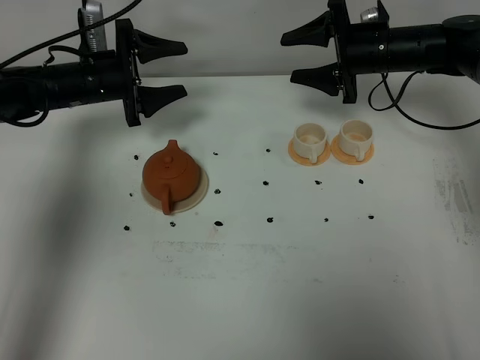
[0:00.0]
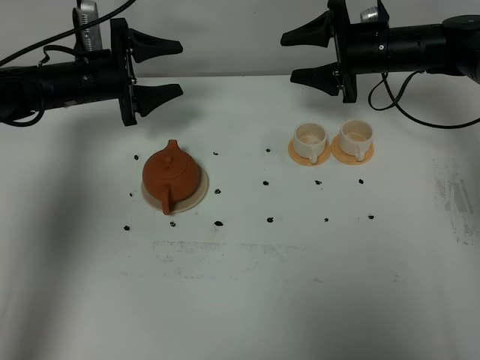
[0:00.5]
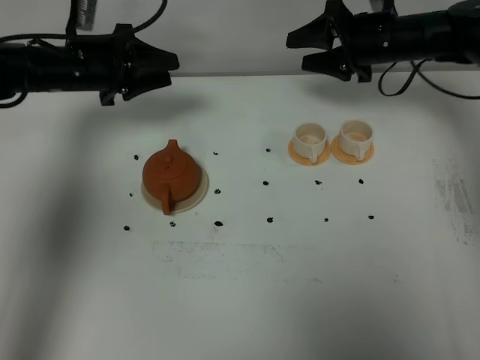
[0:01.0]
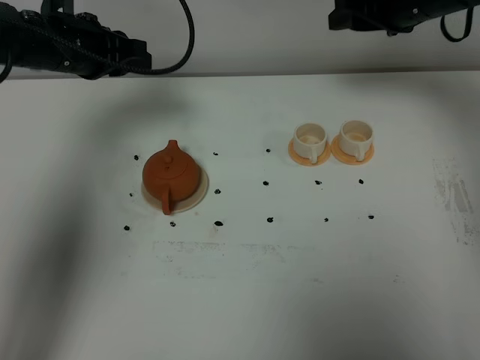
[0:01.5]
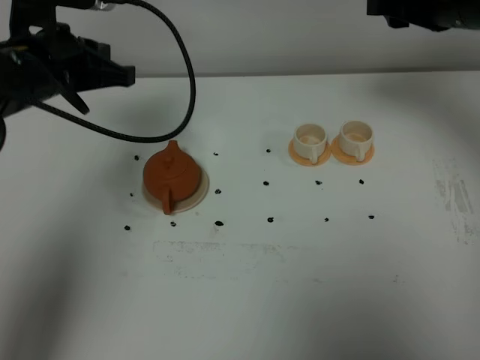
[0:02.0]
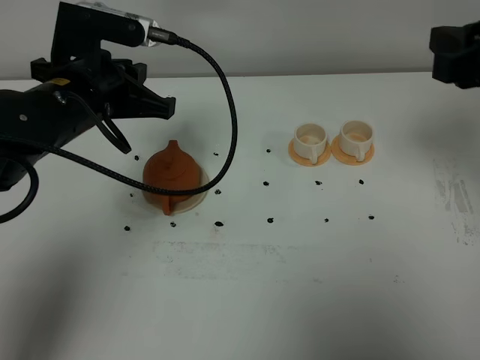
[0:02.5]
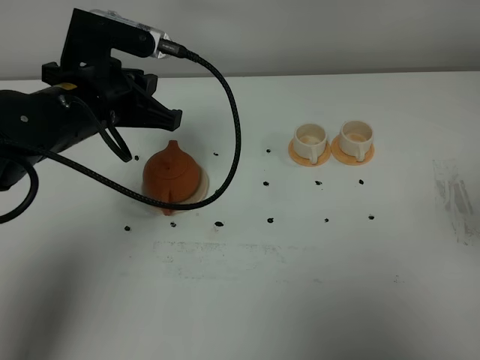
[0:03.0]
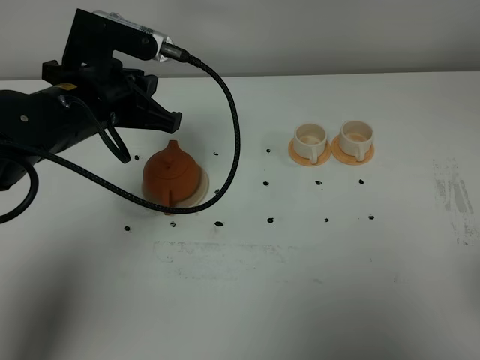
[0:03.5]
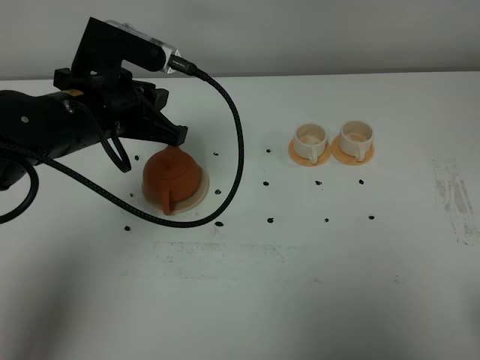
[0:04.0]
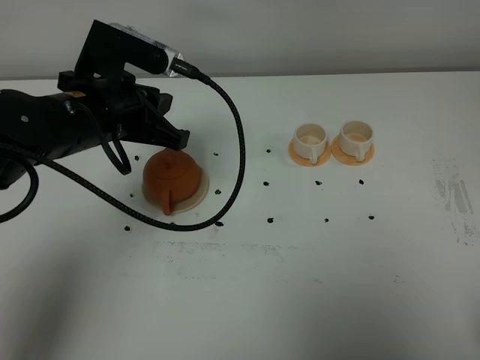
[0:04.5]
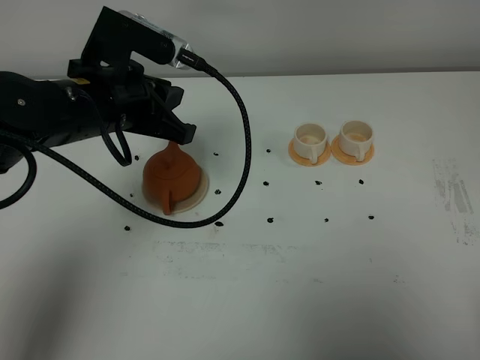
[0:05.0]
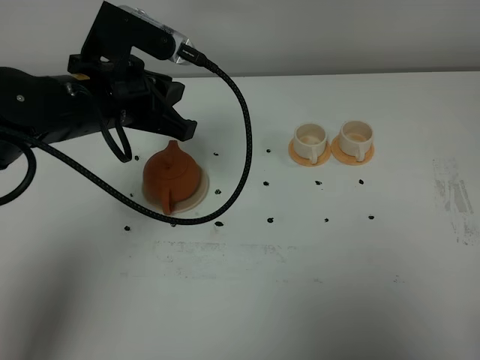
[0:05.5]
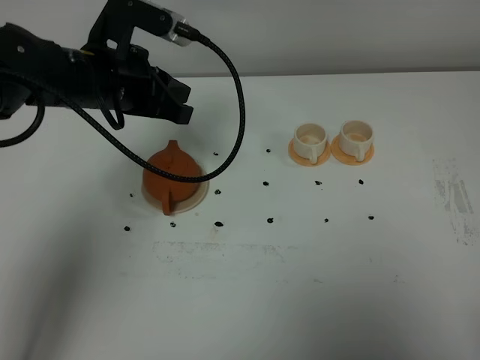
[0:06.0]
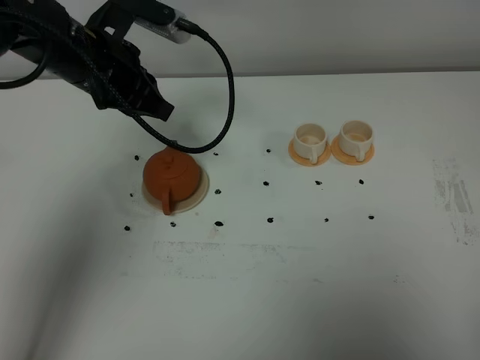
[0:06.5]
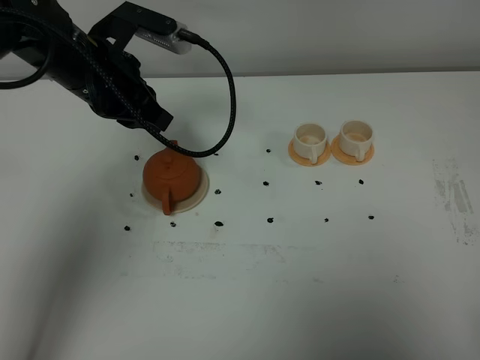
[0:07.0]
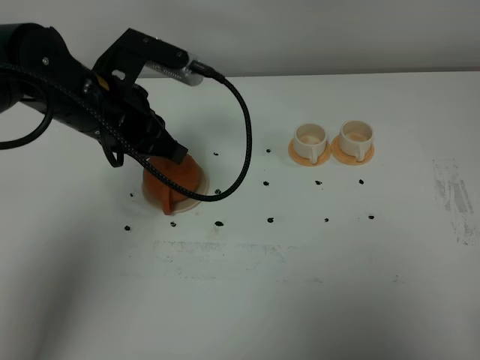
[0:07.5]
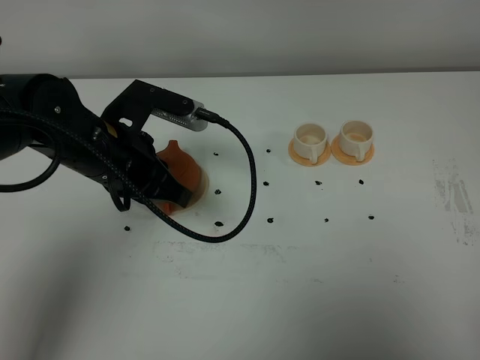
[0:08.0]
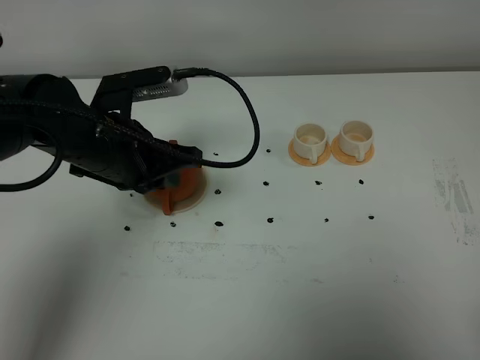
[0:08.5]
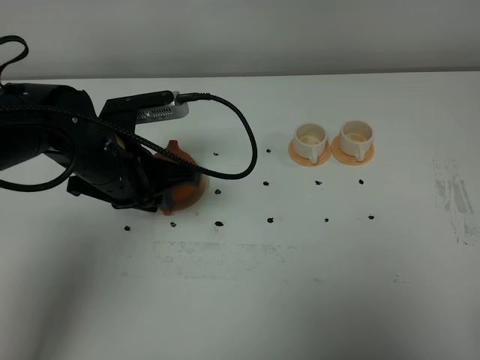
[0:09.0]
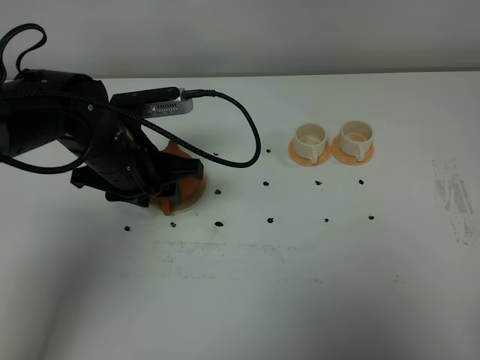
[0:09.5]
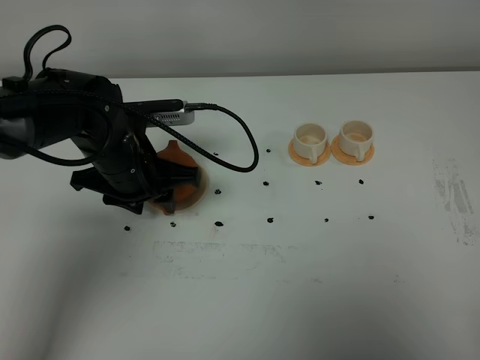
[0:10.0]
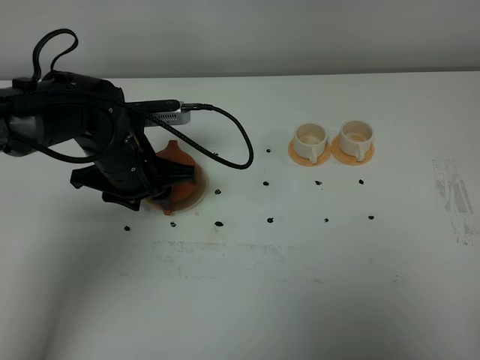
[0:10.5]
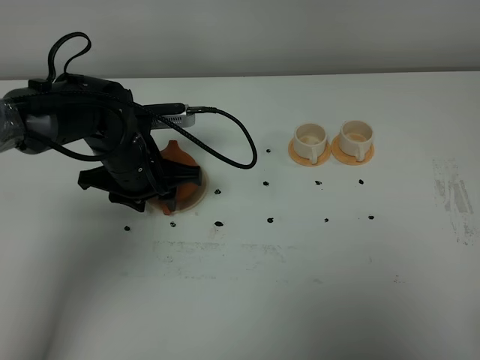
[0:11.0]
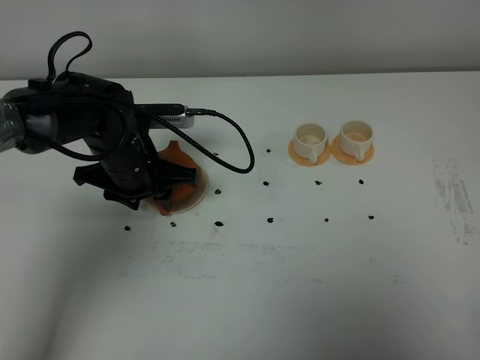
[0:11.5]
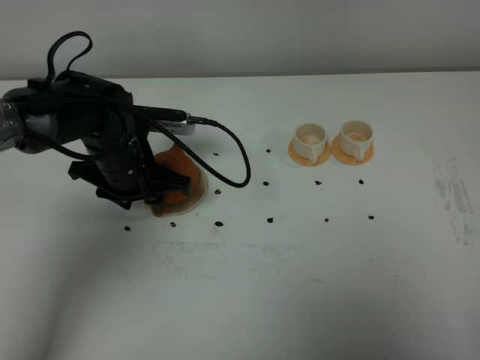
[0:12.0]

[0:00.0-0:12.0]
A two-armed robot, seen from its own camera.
Task of the whole recording: grasp the brown teapot and pour the tea into the two white teacups one by one, put the brown teapot back in its original place.
0:00.0 to 0:02.0: The right gripper goes roughly 20 cm upward and backward, while the left gripper goes roughly 15 cm backward and upward, and closes up.
0:02.0 to 0:04.0: The right gripper shifts some 35 cm backward; the left gripper shifts some 5 cm to the right.
0:04.0 to 0:06.0: The right gripper closes.
0:06.0 to 0:08.0: The left gripper is displaced backward by some 5 cm.
0:08.0 to 0:10.0: The left gripper changes place by about 5 cm, and opens up.
0:10.0 to 0:12.0: The grippers make only small movements.

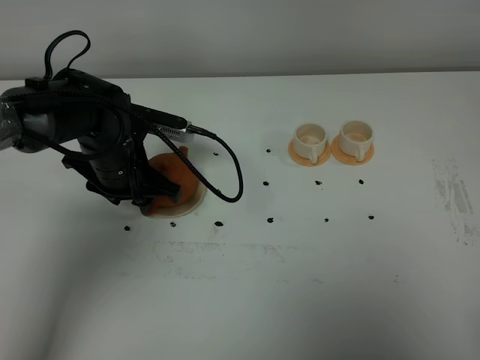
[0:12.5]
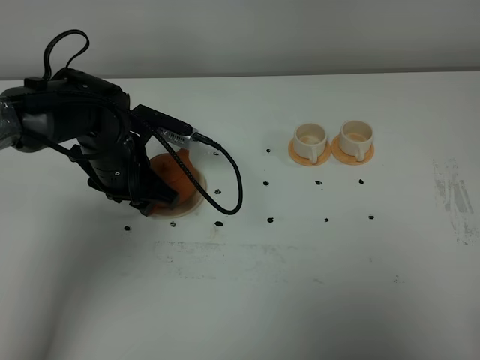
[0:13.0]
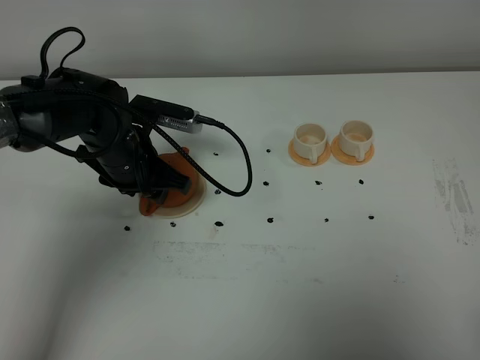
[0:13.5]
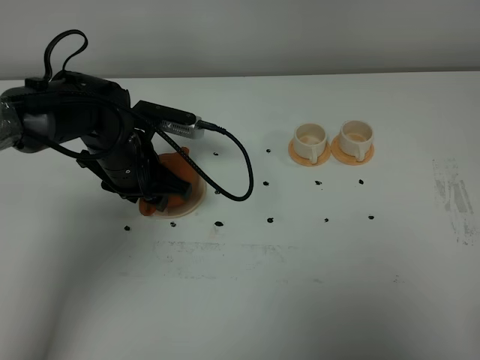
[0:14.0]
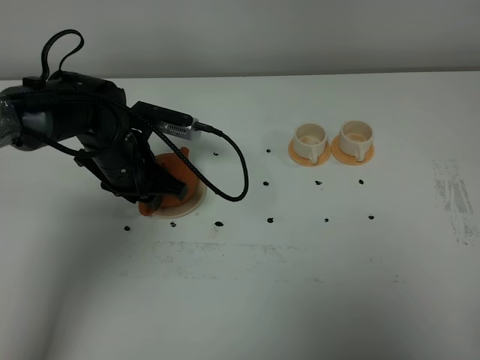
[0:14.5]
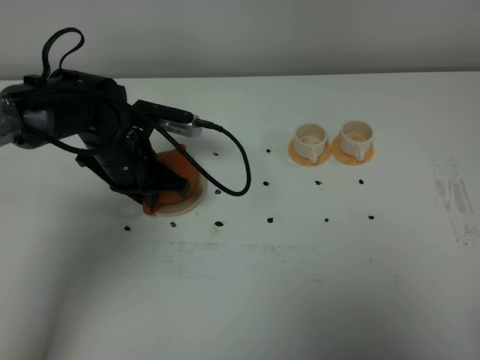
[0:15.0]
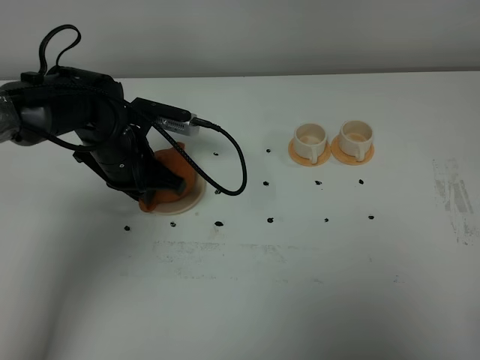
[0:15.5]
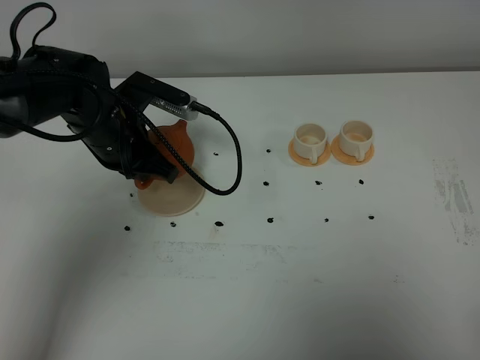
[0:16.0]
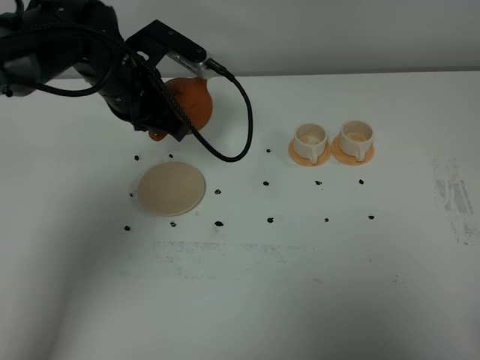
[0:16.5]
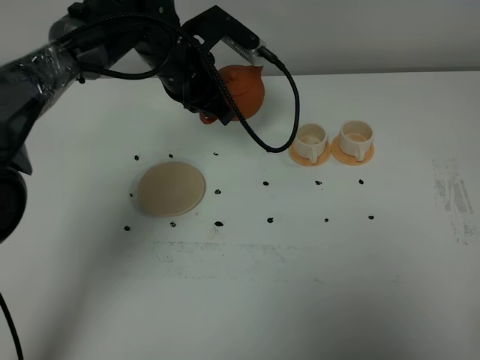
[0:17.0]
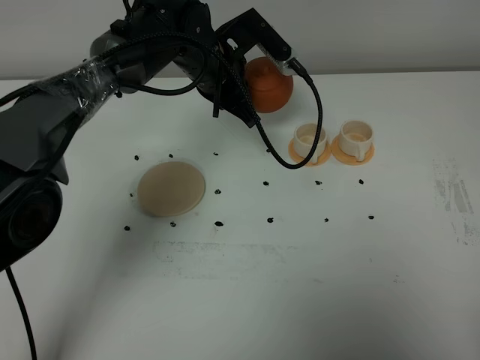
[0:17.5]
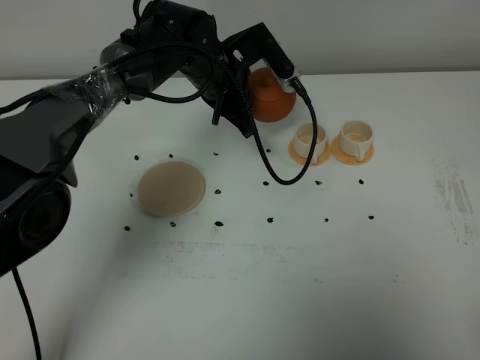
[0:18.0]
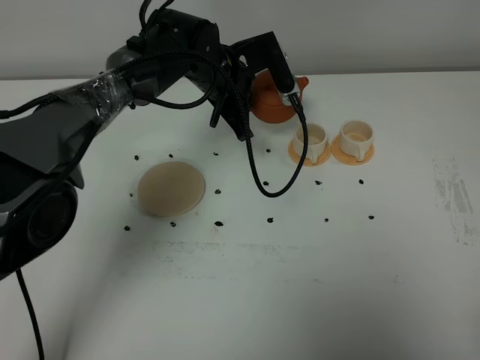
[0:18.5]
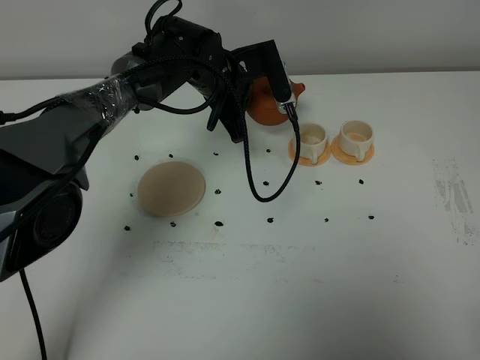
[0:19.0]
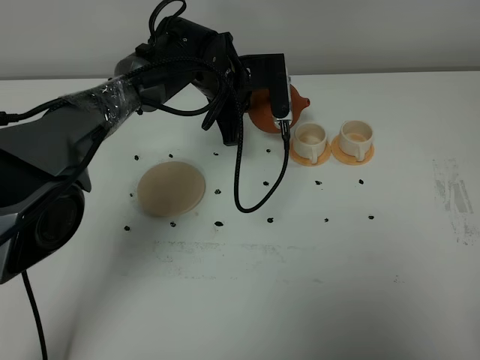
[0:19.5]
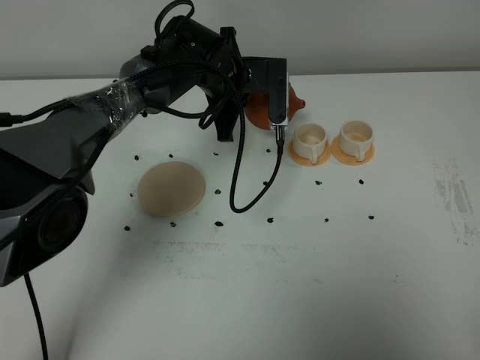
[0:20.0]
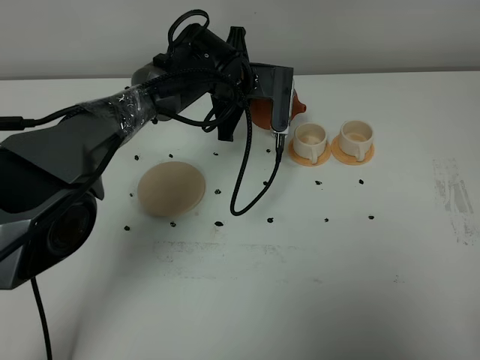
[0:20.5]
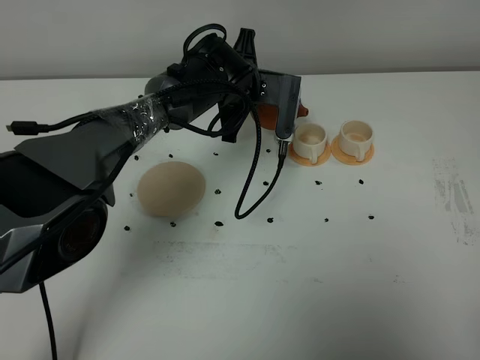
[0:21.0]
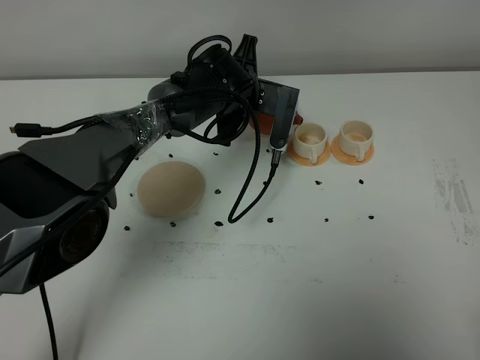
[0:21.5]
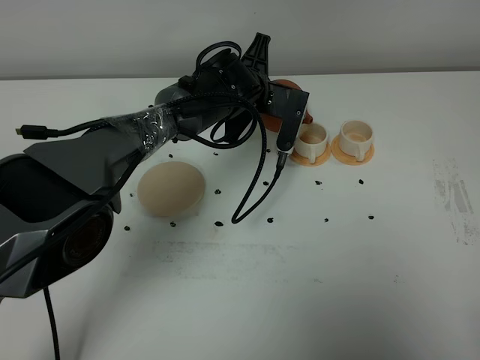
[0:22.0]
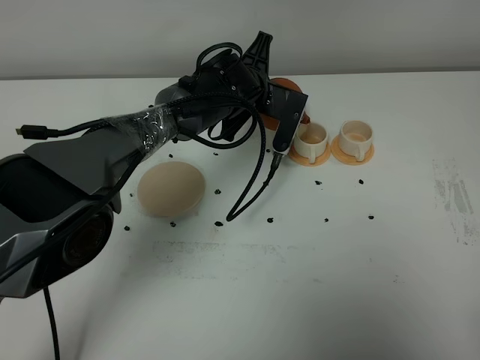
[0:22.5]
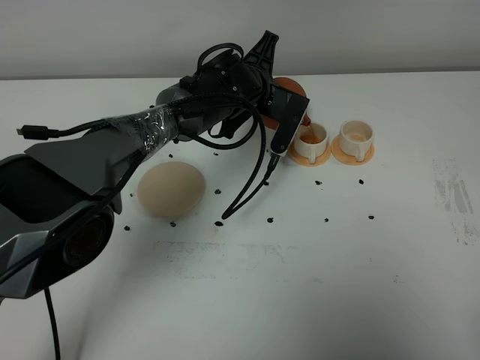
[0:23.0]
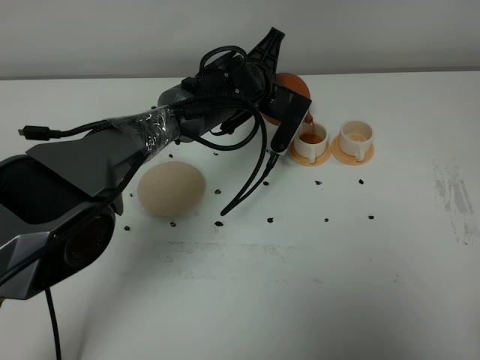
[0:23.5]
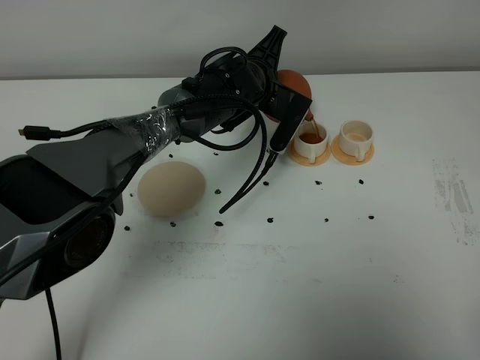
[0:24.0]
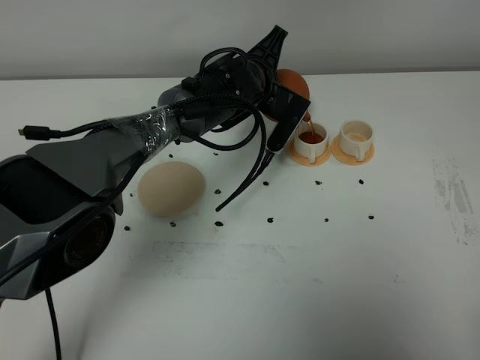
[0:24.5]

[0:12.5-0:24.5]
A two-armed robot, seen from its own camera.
Task of the whole recording: grasp the brown teapot and pour the tea into the two white teacups one by one, put the brown teapot back in its original place.
Step, 0:12.5 to 0:15.5: Pick up the teapot with the left gripper.
0:12.5 to 0:14.5: There are only small adjustments of the grippers.
0:14.5 to 0:16.5: The left gripper shifts roughly 10 cm upward, and closes up.
0:16.5 to 0:18.5: The left gripper heads to the right and forward, covering some 10 cm.
0:20.5 to 0:22.5: There are only small adjustments of the grippers.
0:22.5 to 0:24.5: The grippers stay close to where they were, moving slightly.

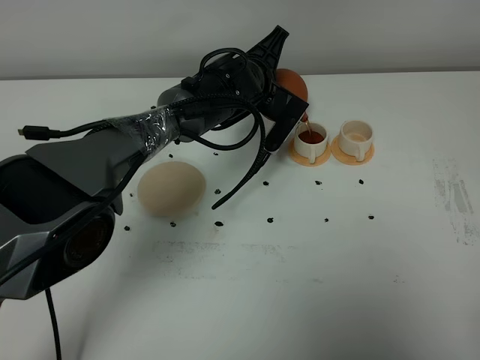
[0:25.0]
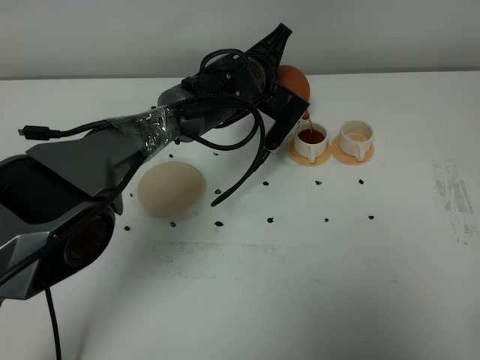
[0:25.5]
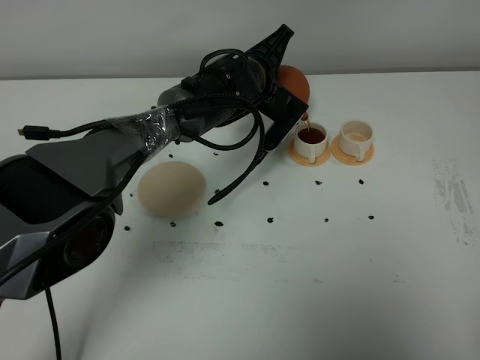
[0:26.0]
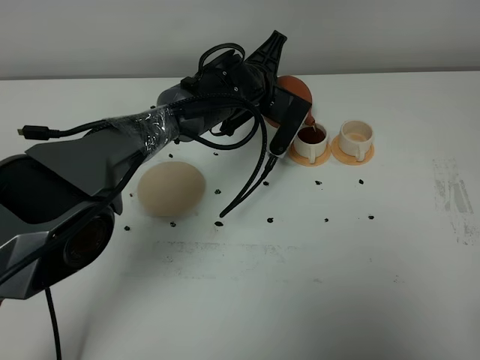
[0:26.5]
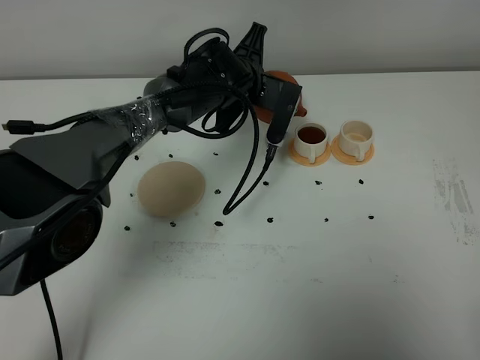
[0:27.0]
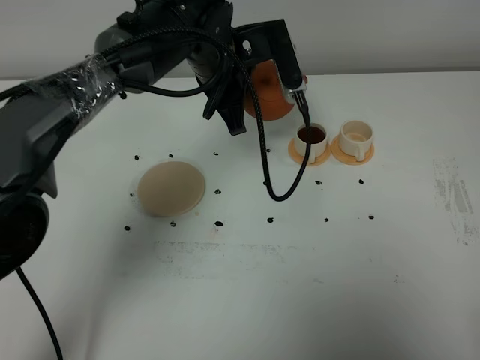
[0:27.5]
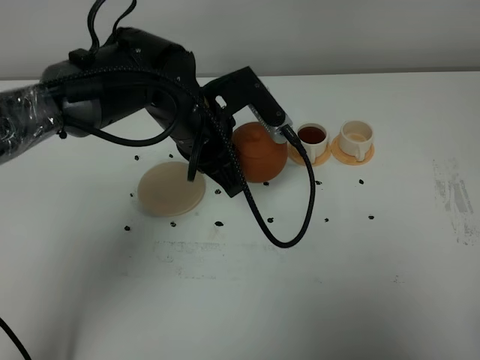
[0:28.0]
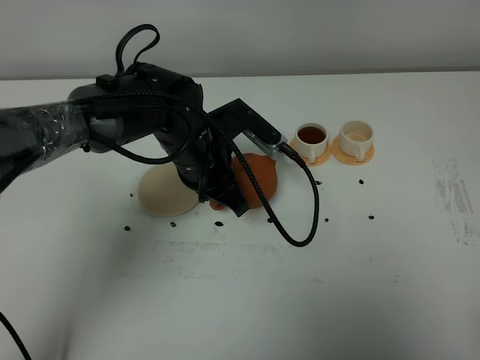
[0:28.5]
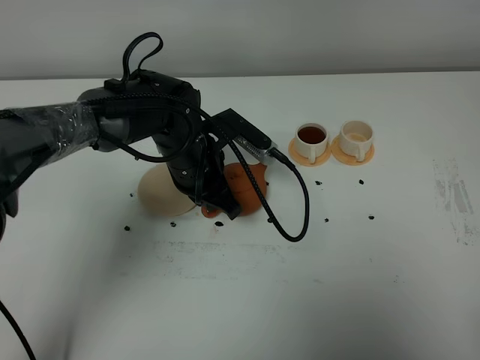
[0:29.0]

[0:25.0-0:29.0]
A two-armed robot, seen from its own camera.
Task of the whole recording: grasp the brown teapot and pour the tea into the two white teacups one by one, put the brown teapot back in its original place.
0:25.0 to 0:27.0: The grippers make only small movements.
0:27.0 to 0:29.0: The left gripper is displaced backward and to the left by some 10 cm.
